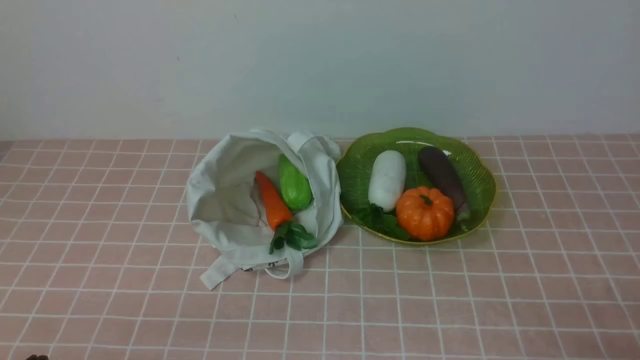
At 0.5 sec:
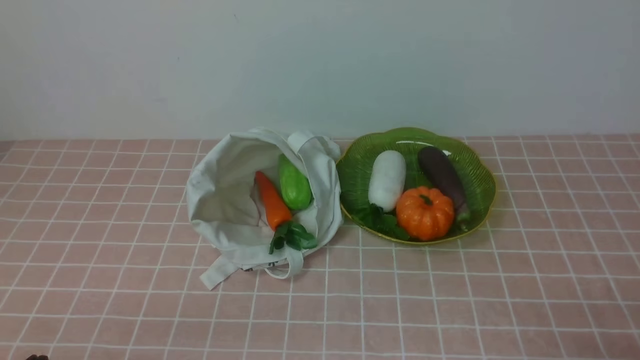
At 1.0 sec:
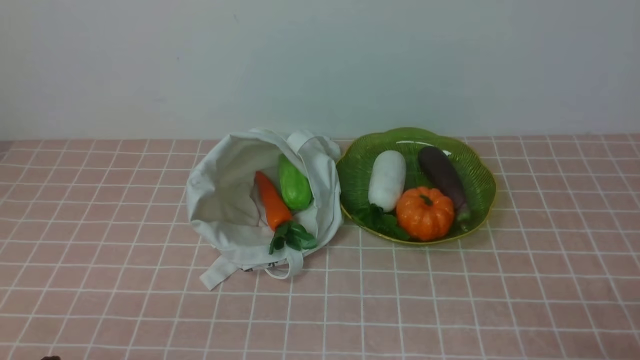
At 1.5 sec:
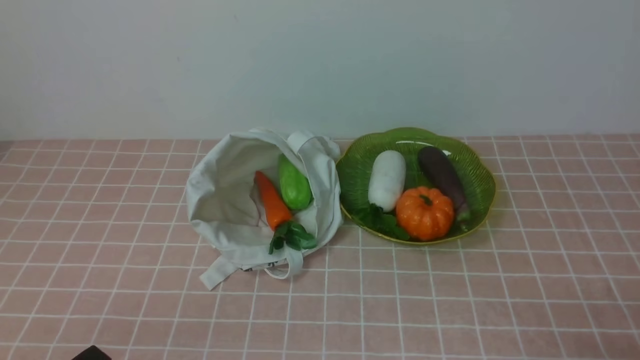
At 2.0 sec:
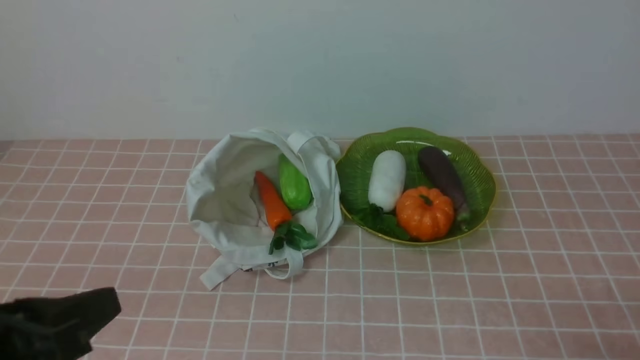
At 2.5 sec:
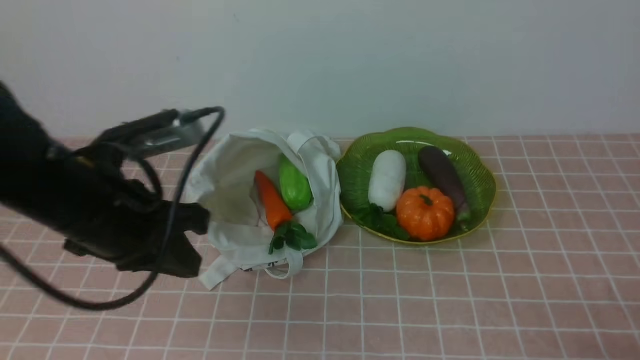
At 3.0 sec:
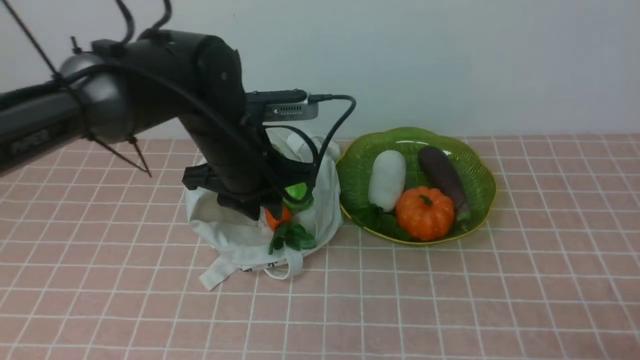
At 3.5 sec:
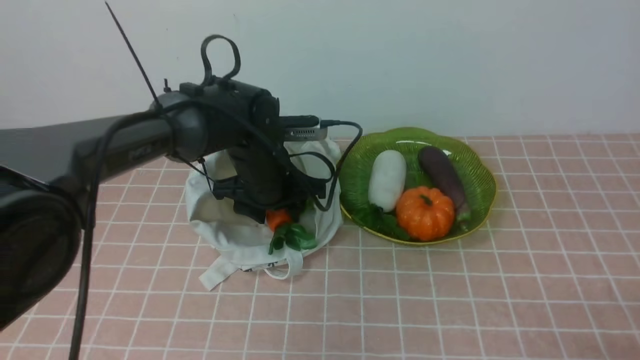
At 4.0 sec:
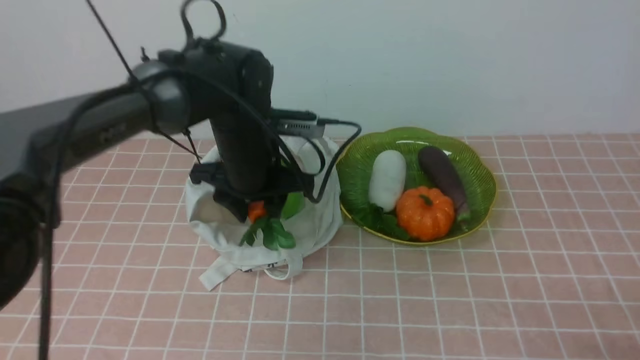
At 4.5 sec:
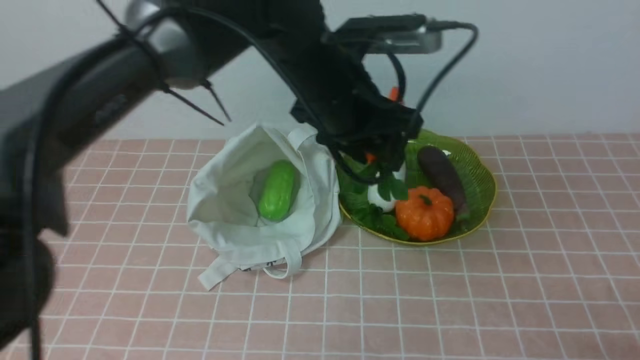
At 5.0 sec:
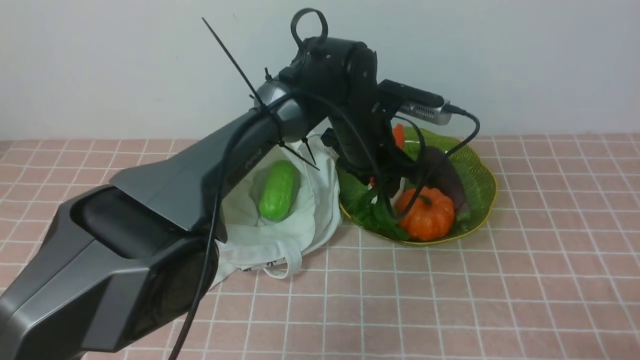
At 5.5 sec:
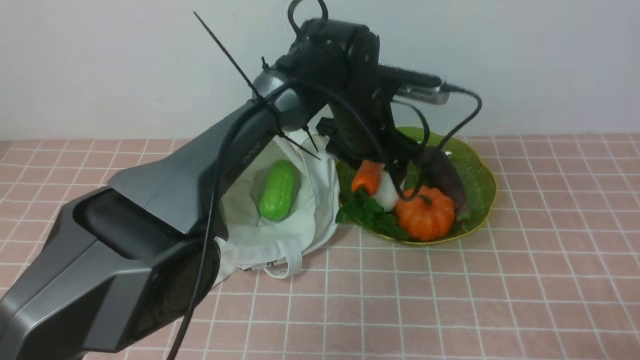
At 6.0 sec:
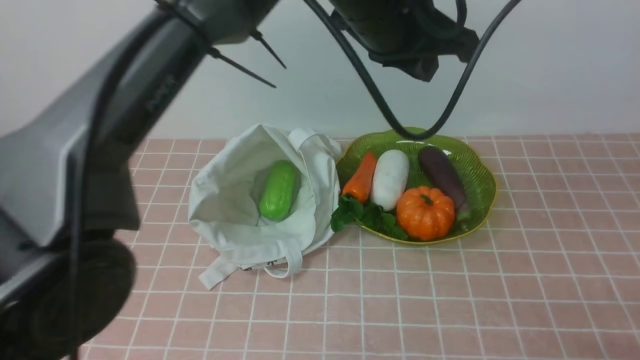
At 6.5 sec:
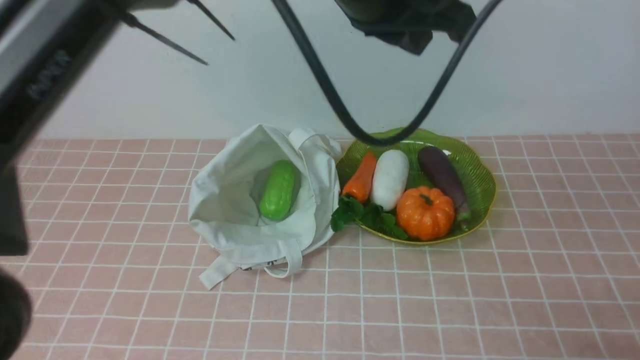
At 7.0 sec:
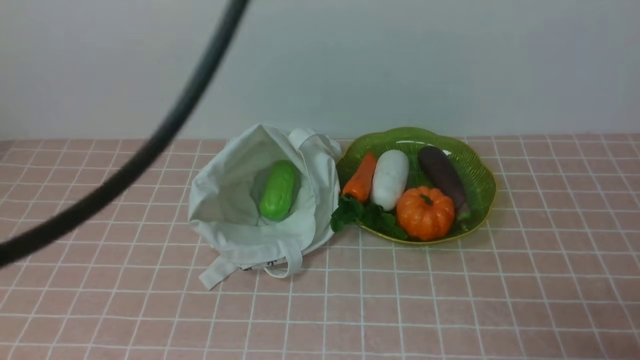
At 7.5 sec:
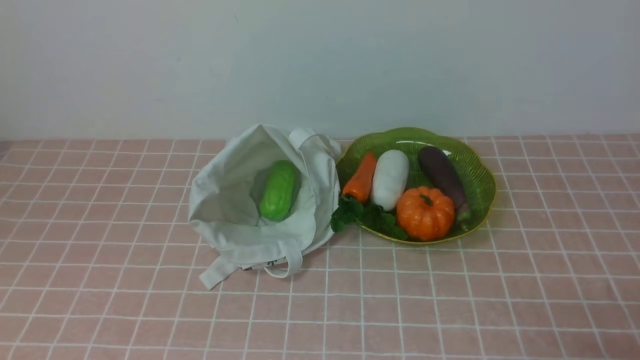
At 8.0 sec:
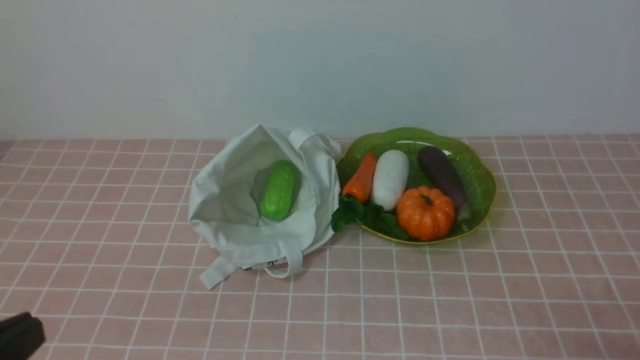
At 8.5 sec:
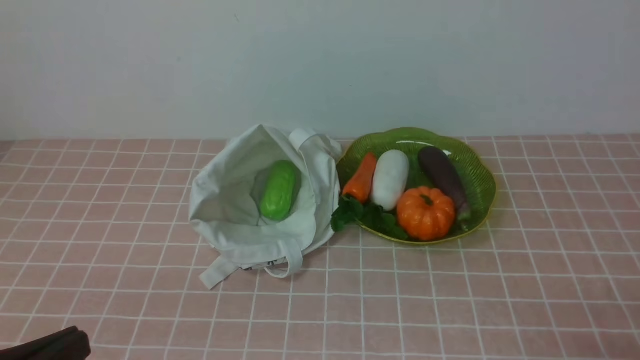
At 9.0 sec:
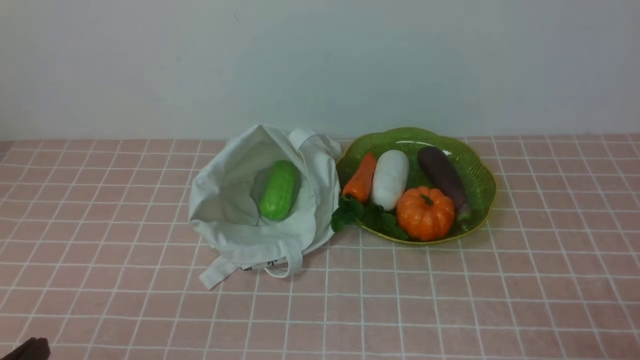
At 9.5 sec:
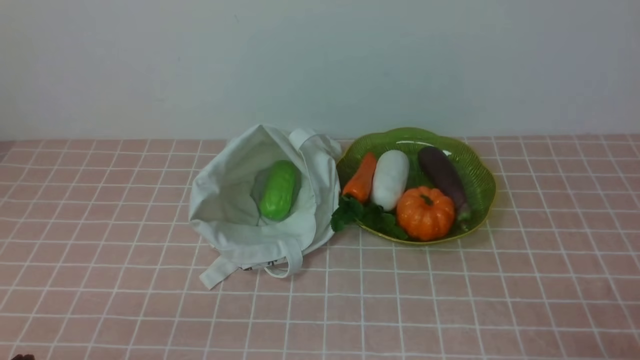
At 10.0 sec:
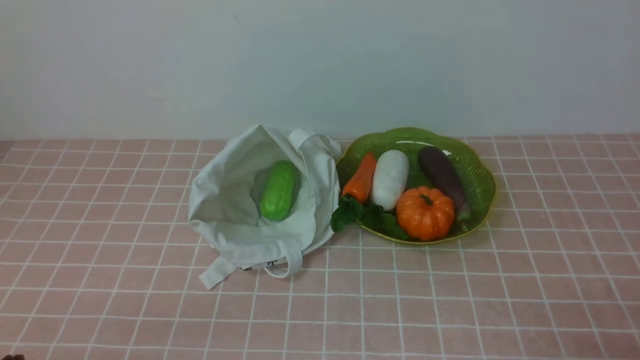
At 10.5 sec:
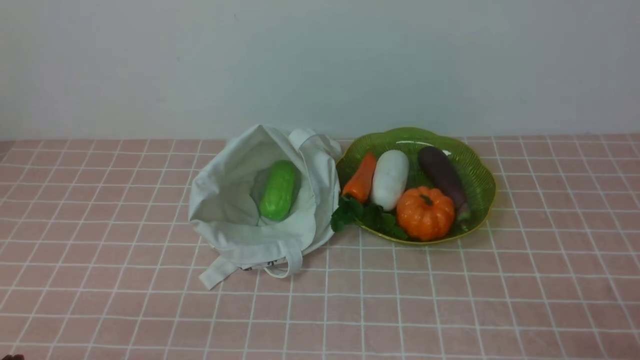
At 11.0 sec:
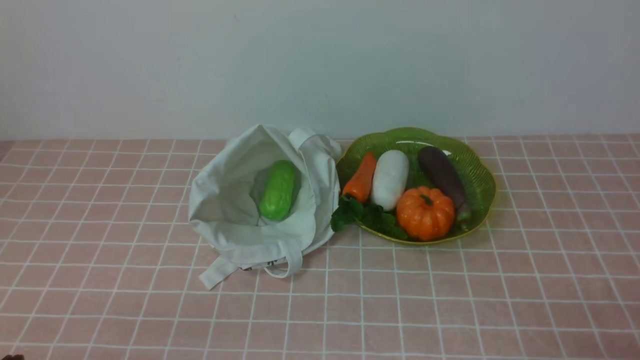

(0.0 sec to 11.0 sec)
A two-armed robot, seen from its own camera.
Task of the whole recording: take vegetables from bag on pink coffee tablecloth place on plate.
Step, 0.0 sec - 3.5 sec: Grasp the carrot with left gripper.
Step, 4.0 sec - 5.5 sec: Place the carrot on the plate with left gripper.
0.0 sec - 2.0 sec: The left gripper goes about 10 cm upward.
2.0 sec - 3.5 sec: The left gripper travels forward and to the right by about 35 cm, and opens.
3.5 sec - 5.5 sec: The left gripper moves up and down over about 15 cm, changing direction 2 times.
5.5 sec - 7.5 sec: The left gripper is displaced backward, to the left and upward by some 50 cm, and closes its fingers.
7.5 sec - 9.0 sec: The left gripper moves downward, some 25 cm.

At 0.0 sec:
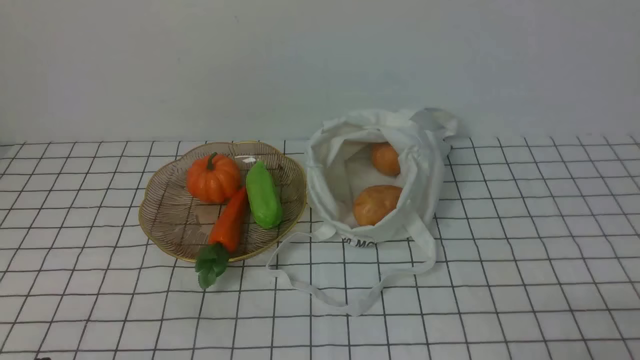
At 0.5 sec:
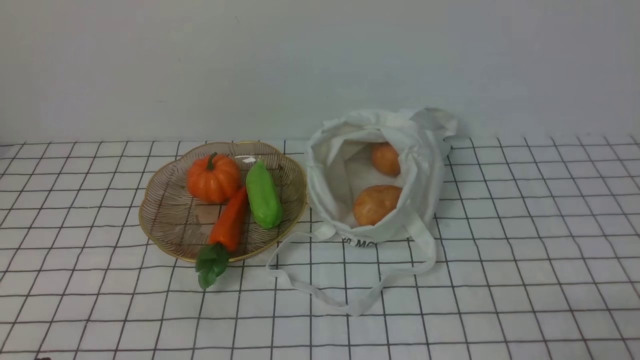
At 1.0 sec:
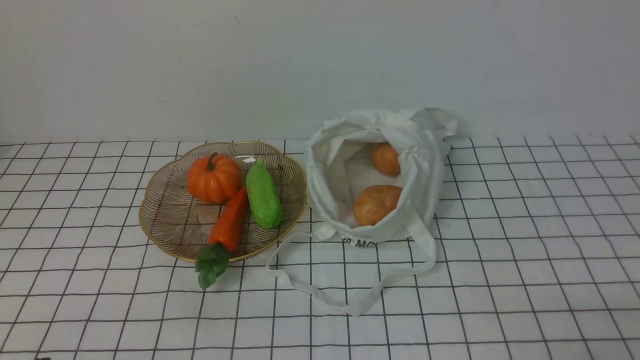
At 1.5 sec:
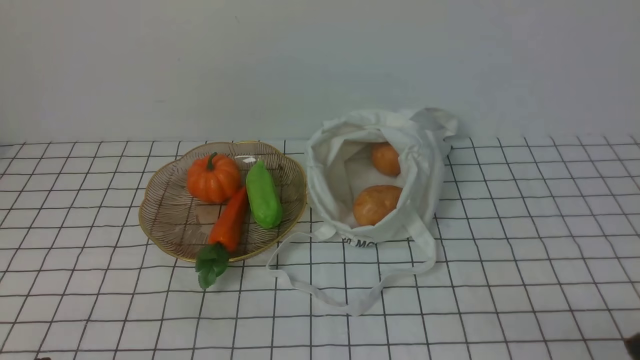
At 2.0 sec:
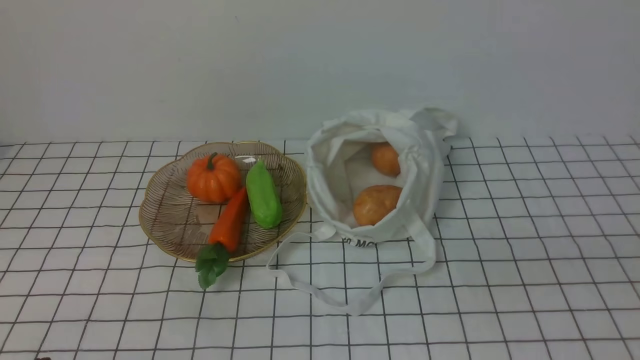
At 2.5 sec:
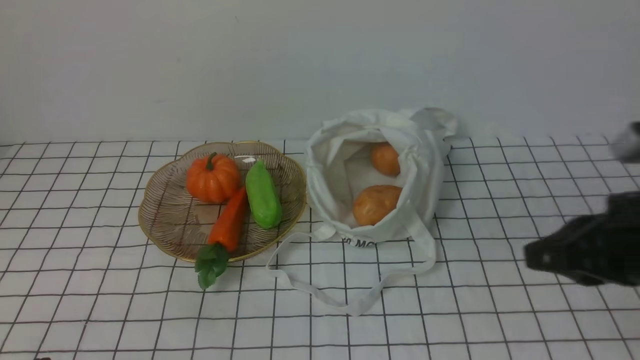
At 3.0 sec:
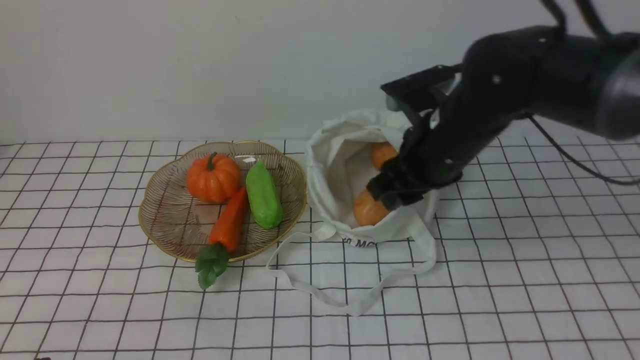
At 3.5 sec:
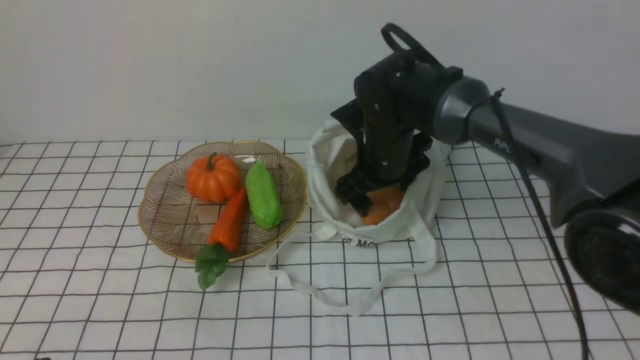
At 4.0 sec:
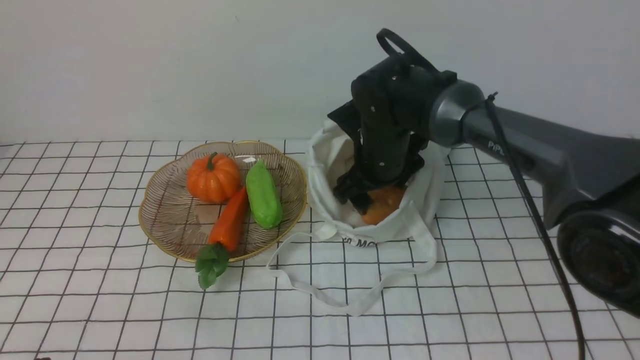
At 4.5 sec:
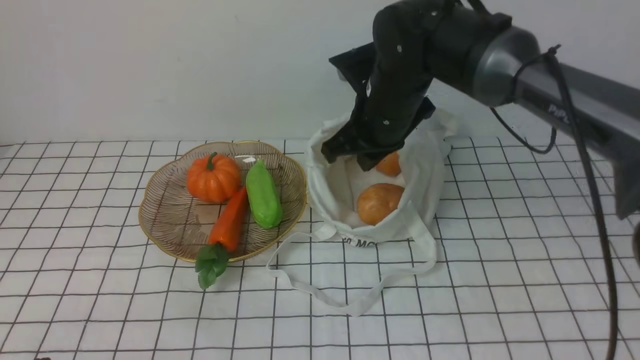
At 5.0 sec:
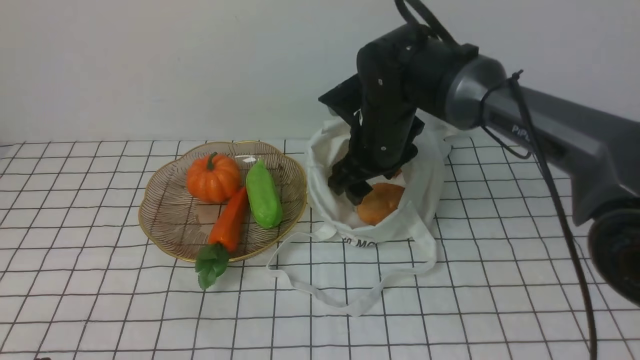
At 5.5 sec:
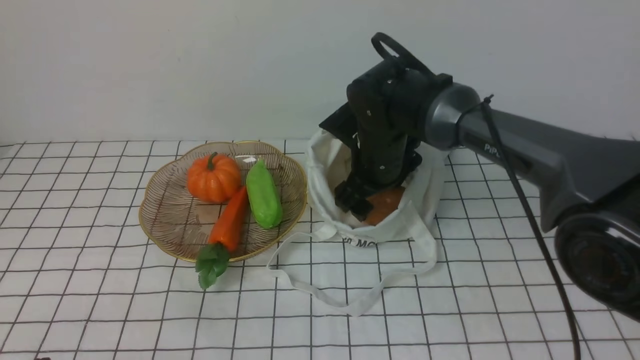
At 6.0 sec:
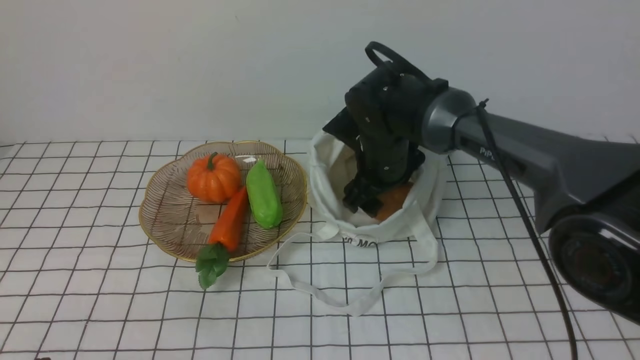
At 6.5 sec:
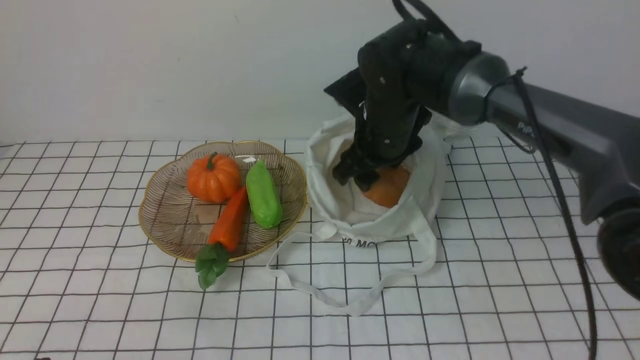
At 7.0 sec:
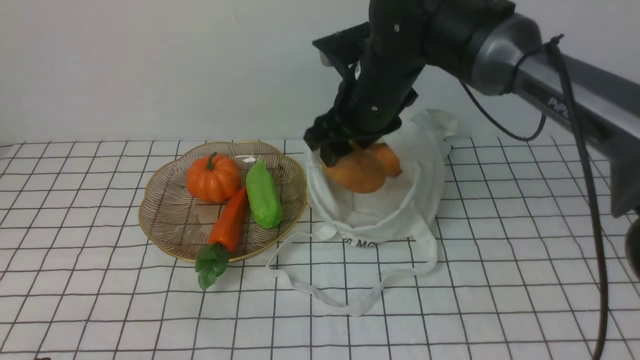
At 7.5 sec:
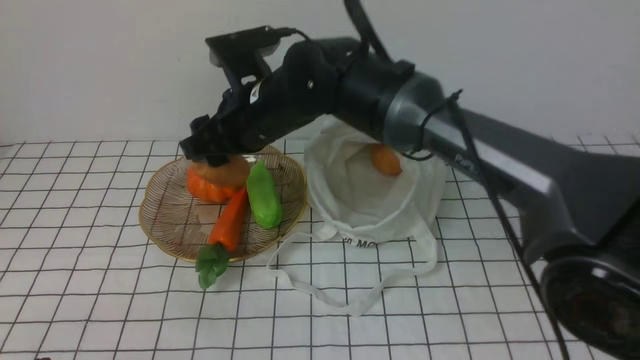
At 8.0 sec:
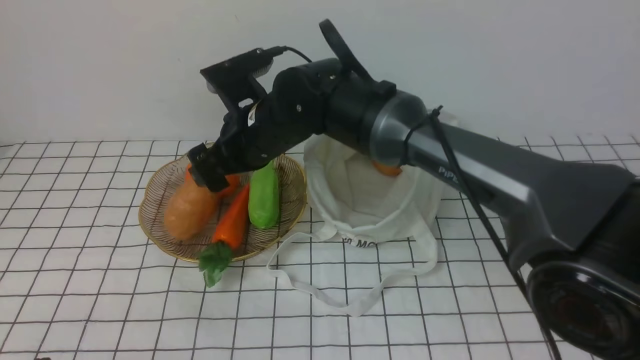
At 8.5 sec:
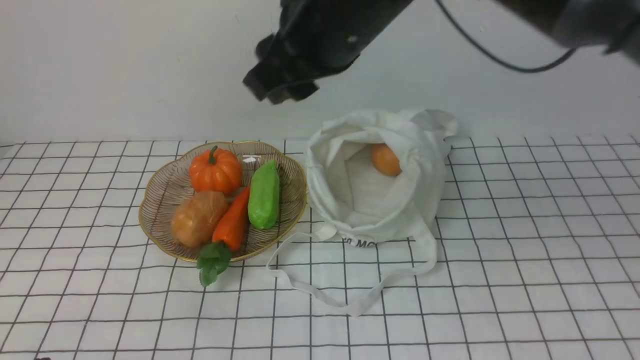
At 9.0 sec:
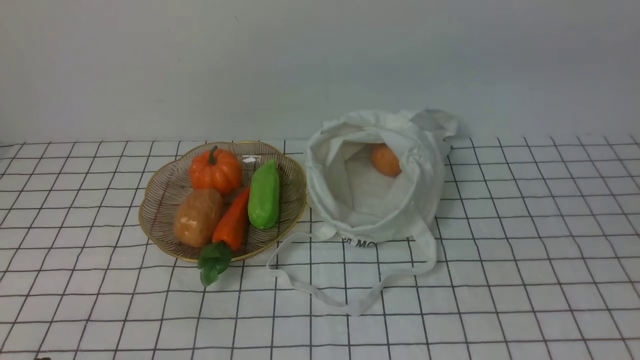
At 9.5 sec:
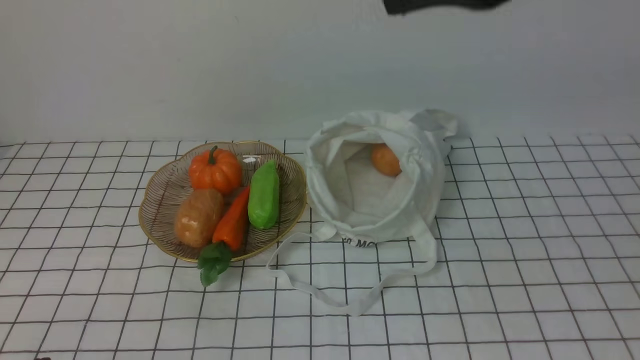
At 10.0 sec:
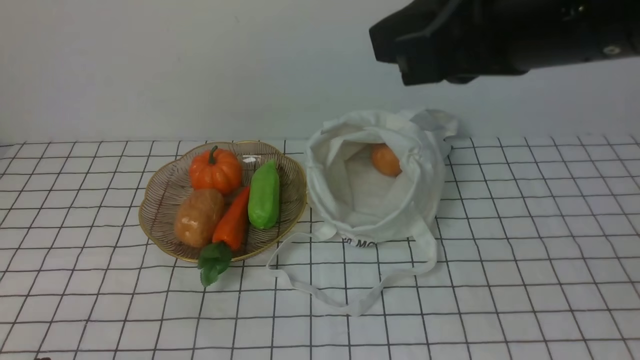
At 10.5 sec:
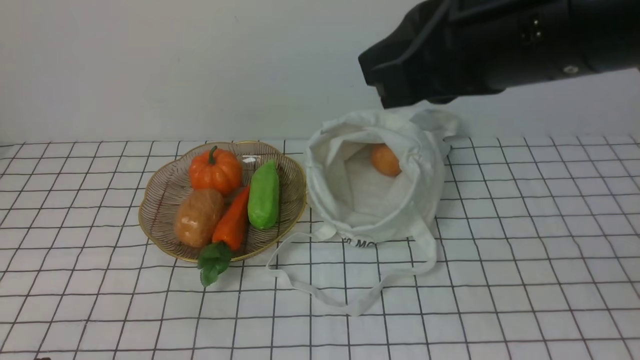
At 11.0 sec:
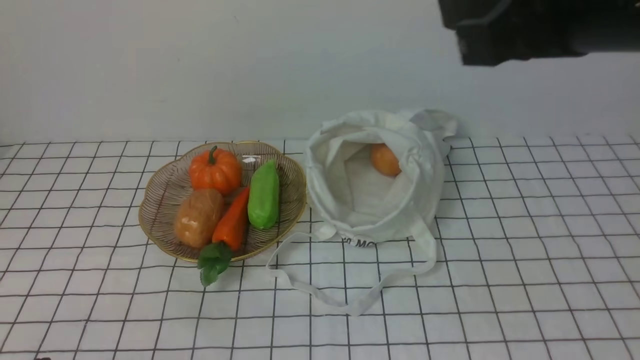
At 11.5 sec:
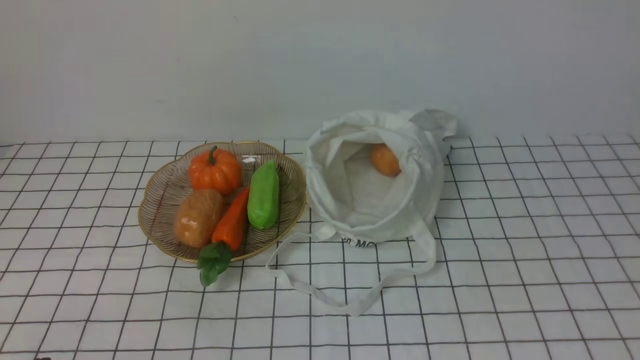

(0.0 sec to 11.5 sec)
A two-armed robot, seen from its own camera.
Task of the whole recording: take vegetables from bag on white checkered tablecloth place on plate.
Step, 0.0 sec - 5.5 sec: Grasp the potato with right gripper.
Step, 6.0 sec - 8.0 sec: Place the potato on the plate with right gripper.
2.0 sec - 4.0 sec: The right gripper travels forward and to the left by some 40 cm, and opens up.
4.0 sec - 6.0 sec: The right gripper closes, then reopens.
6.0 sec - 7.5 sec: The right gripper shifts approximately 15 cm to the left and upward.
7.5 sec - 9.5 sec: The right gripper is displaced upward, backward and to the right by roughly 35 cm, and closes.
